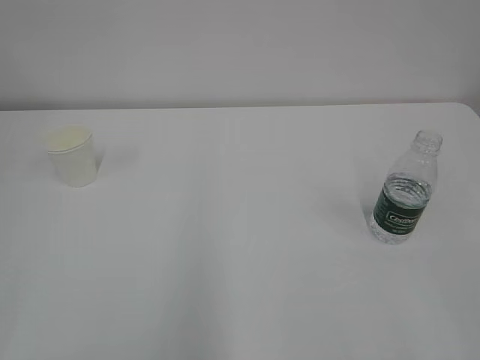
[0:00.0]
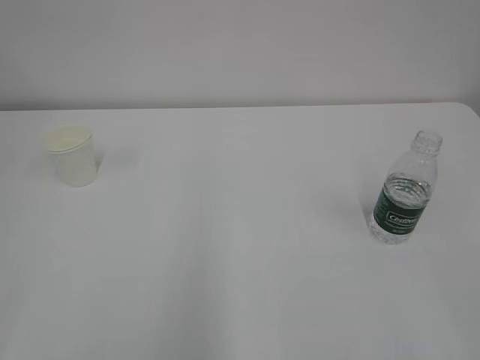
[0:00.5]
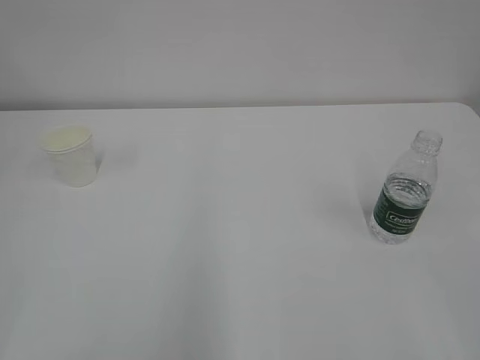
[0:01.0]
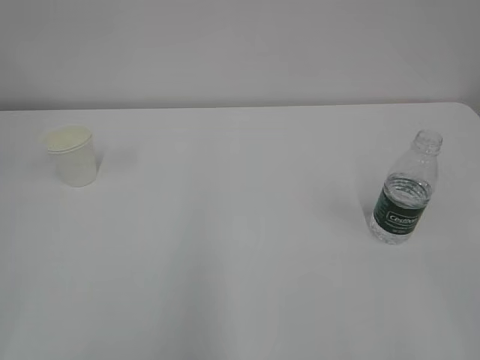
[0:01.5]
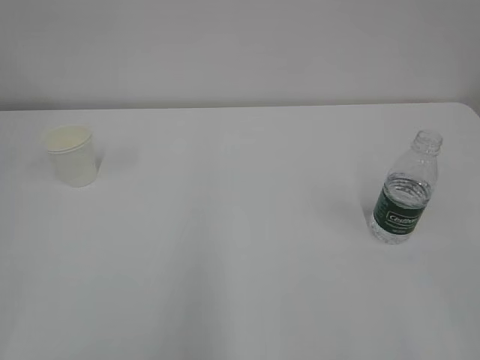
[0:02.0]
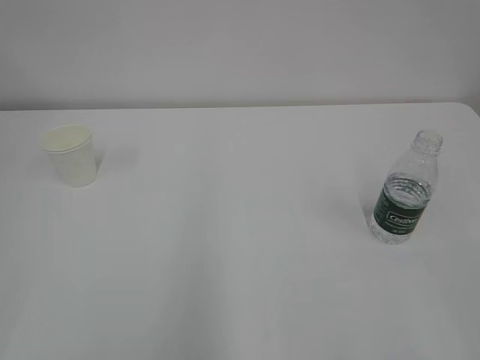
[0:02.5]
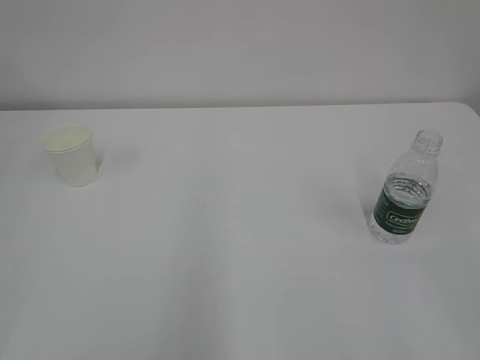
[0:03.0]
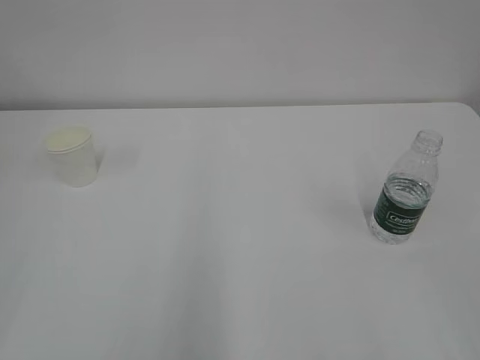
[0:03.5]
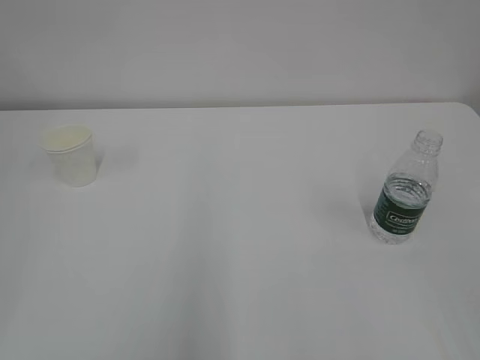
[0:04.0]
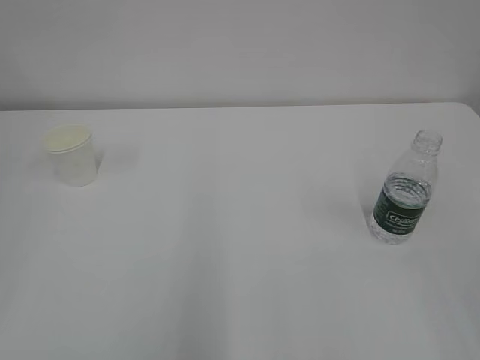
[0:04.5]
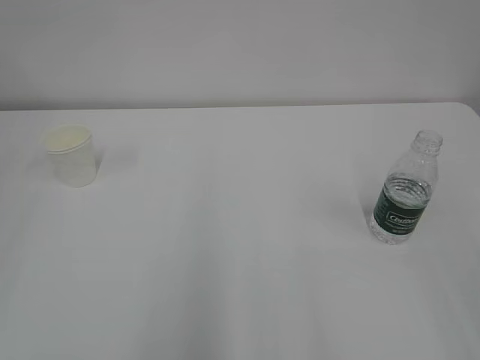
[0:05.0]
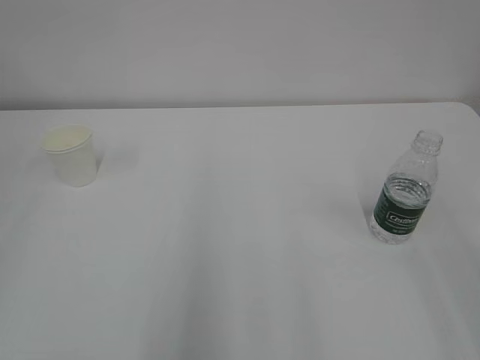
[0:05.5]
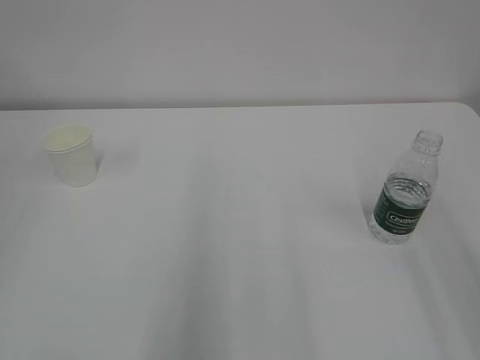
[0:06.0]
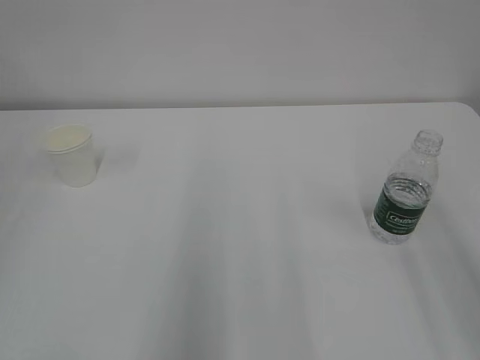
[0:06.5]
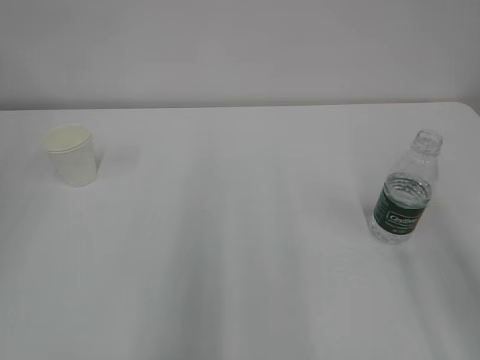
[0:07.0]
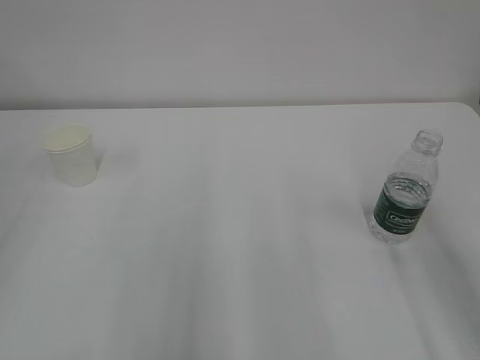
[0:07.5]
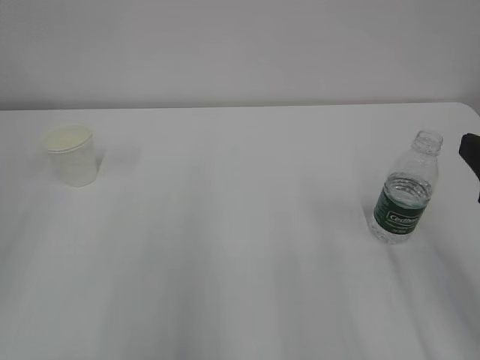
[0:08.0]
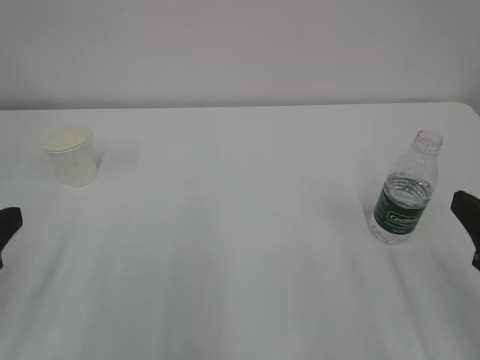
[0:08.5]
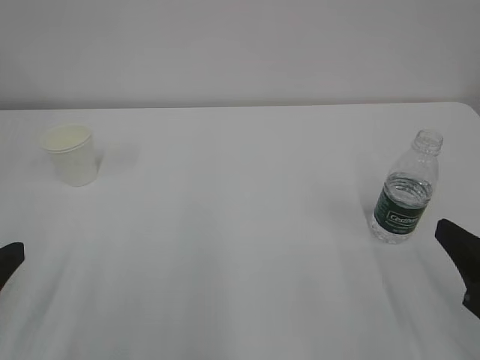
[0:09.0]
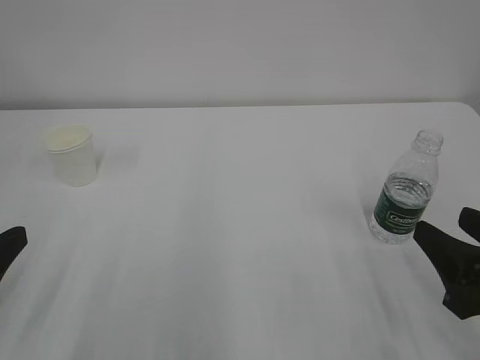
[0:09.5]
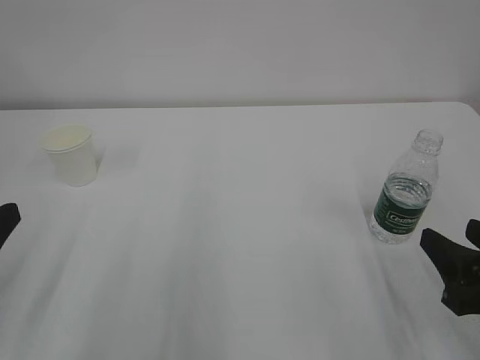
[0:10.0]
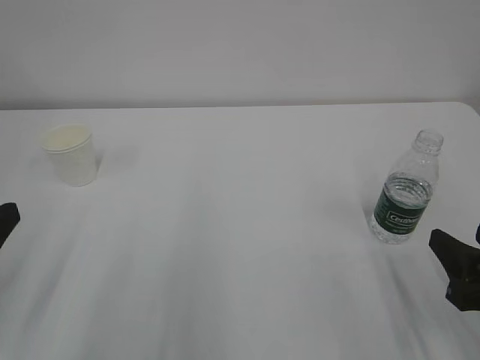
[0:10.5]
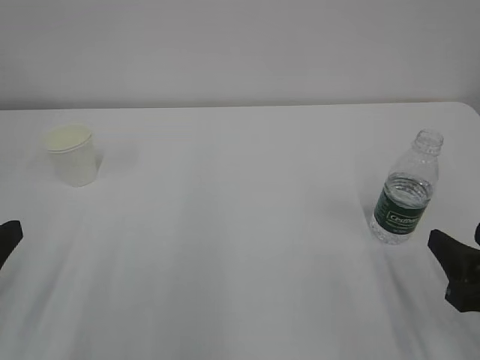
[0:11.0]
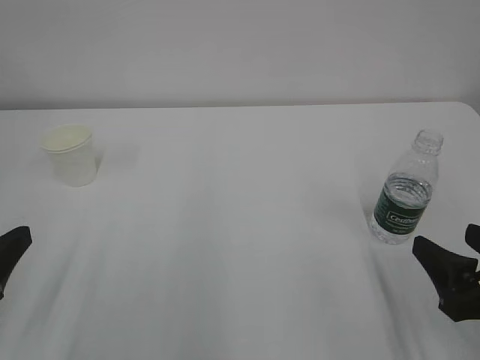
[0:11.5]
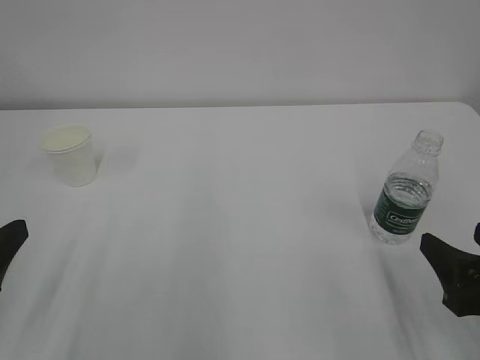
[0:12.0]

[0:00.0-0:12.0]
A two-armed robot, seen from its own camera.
0:08.0 to 0:10.0: The right gripper moves downward, some 10 cm.
0:10.0 to 0:12.0: The left gripper opens.

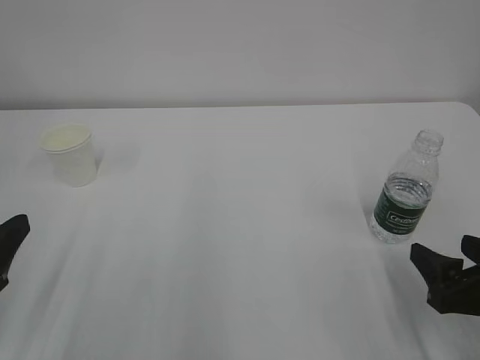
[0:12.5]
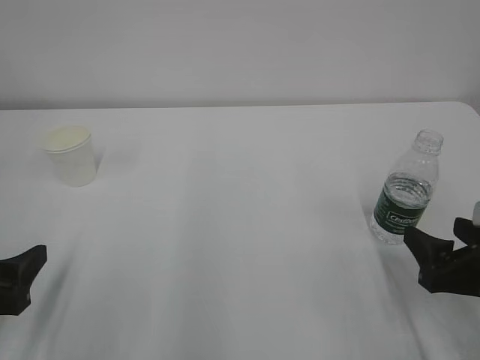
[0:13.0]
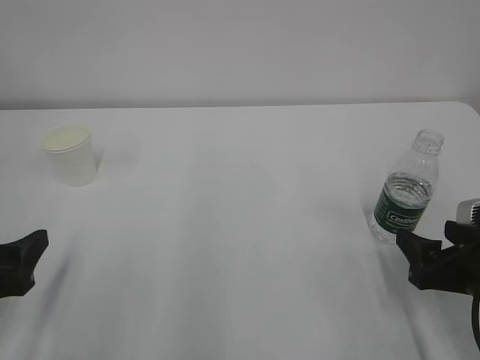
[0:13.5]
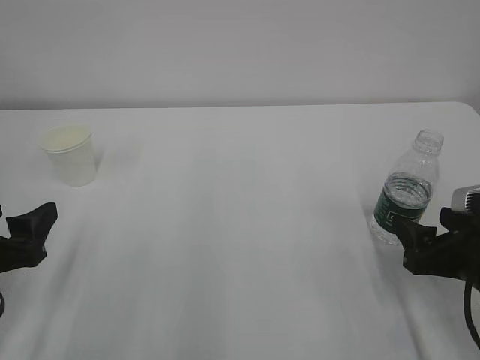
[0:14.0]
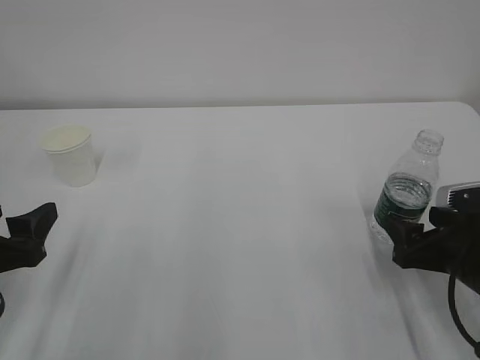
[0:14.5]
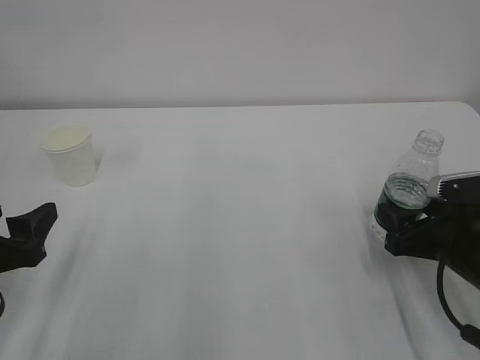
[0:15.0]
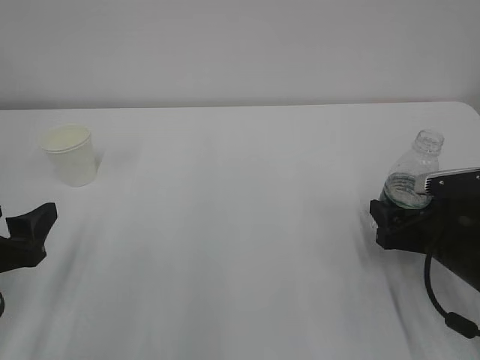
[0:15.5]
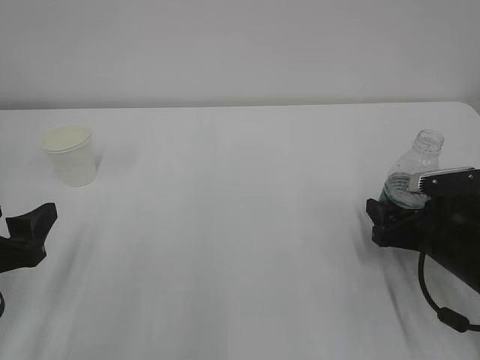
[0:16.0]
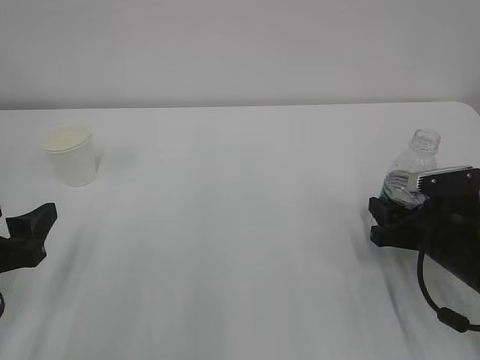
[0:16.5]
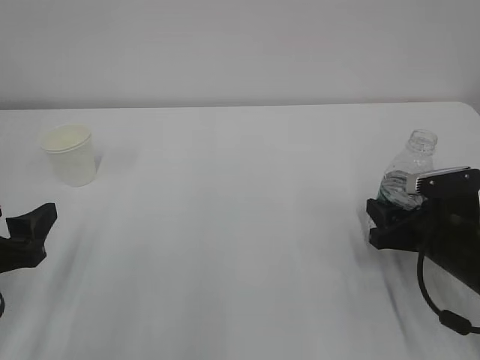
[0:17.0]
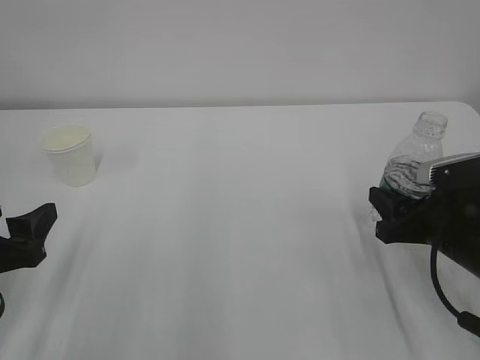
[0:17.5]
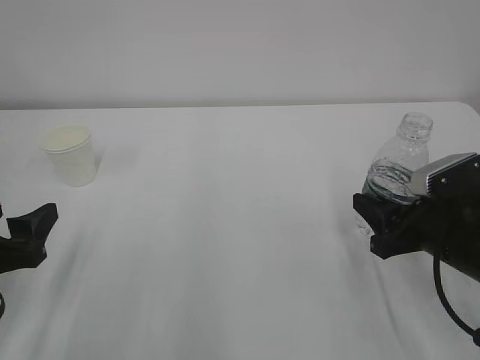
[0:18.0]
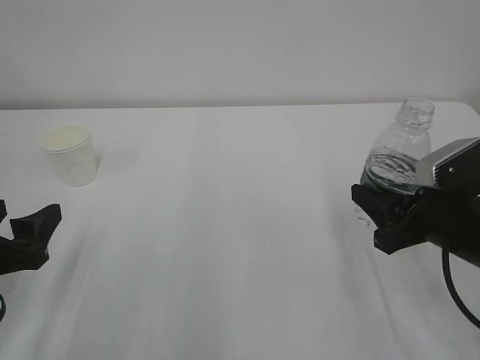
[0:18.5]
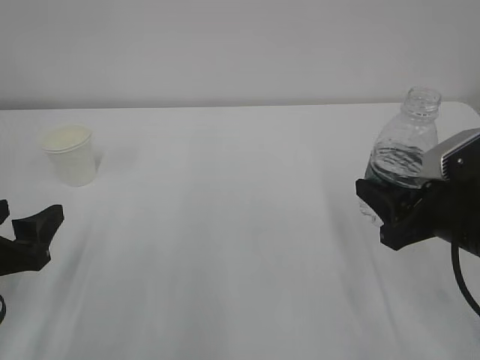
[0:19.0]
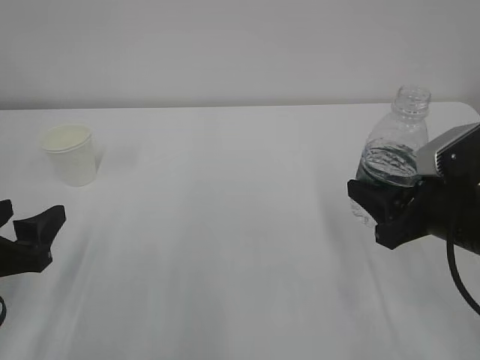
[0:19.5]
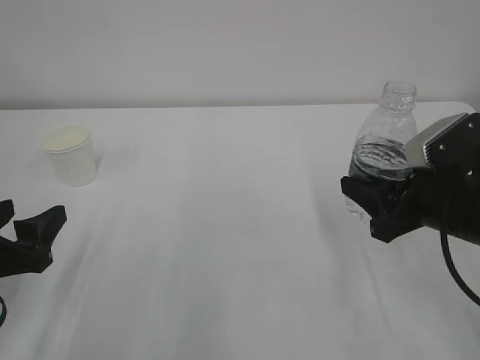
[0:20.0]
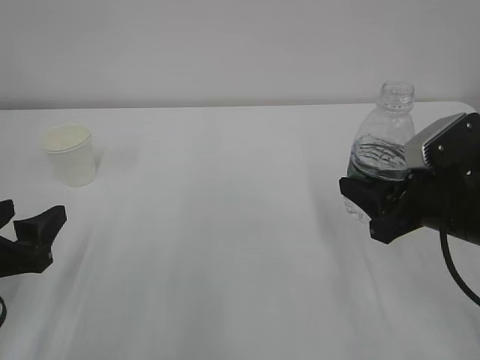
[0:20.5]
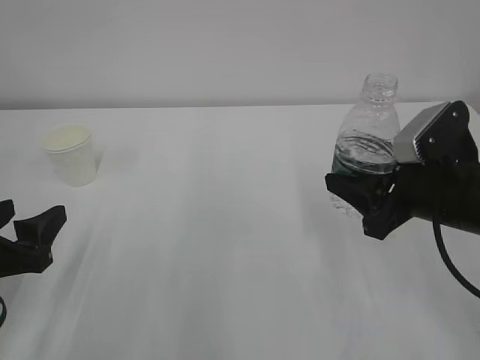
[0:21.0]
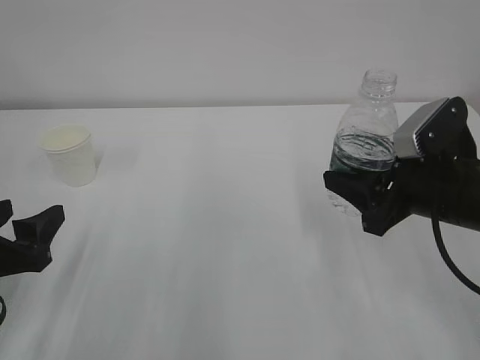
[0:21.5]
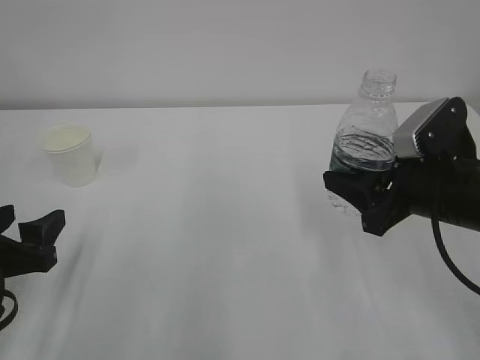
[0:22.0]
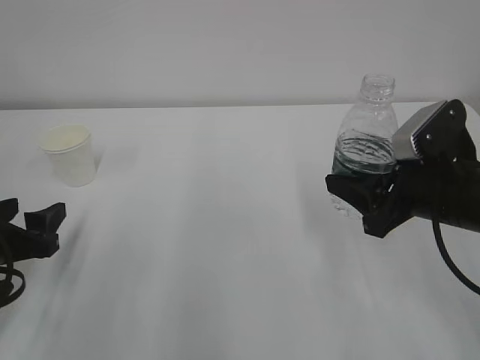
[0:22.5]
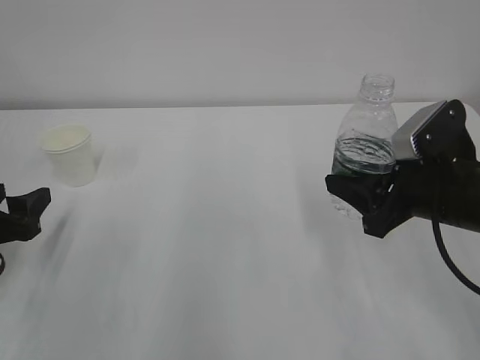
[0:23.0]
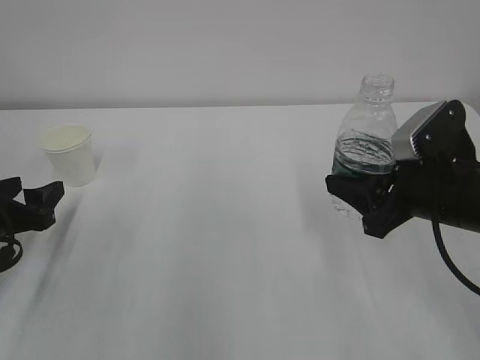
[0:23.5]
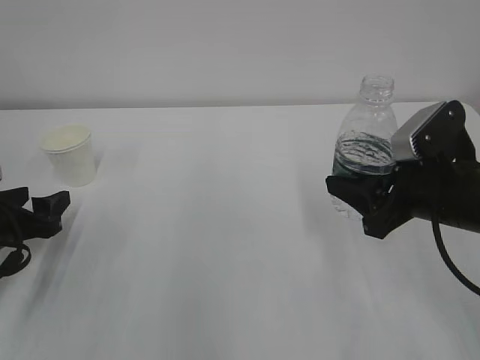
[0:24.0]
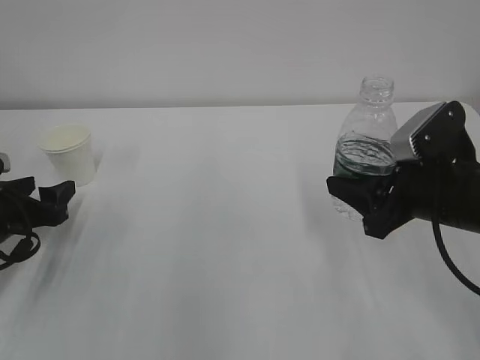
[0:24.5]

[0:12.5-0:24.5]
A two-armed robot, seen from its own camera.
0:12.5 to 0:14.5: The right gripper travels forward by roughly 5 cm.
0:14.5 to 0:16.5: The right gripper closes its fingers.
0:16.5 to 0:18.5: The right gripper is displaced upward by approximately 5 cm.
0:18.5 to 0:22.5: The grippers move only a little.
0:22.5 to 0:24.5: The left gripper heads forward, covering some 5 cm.

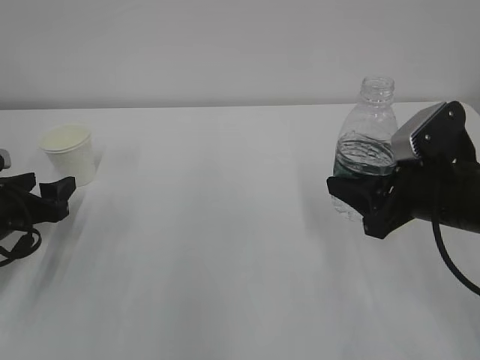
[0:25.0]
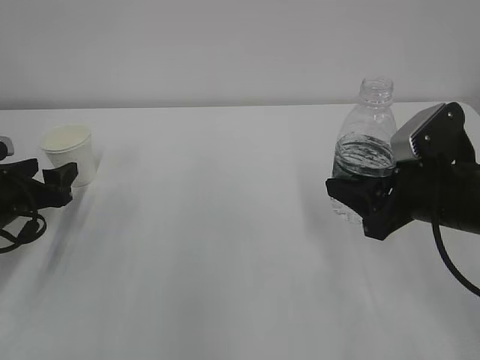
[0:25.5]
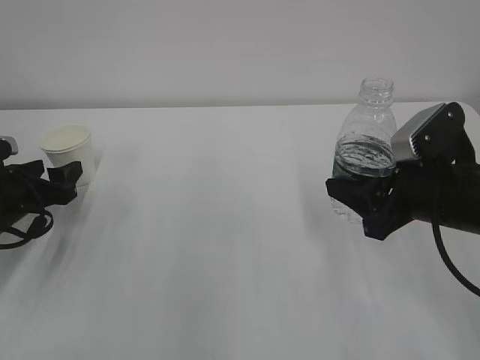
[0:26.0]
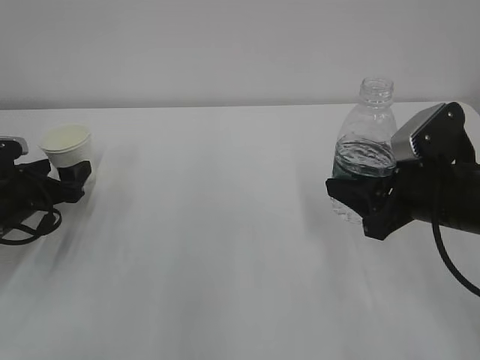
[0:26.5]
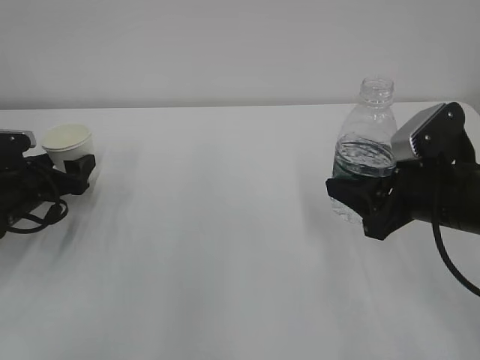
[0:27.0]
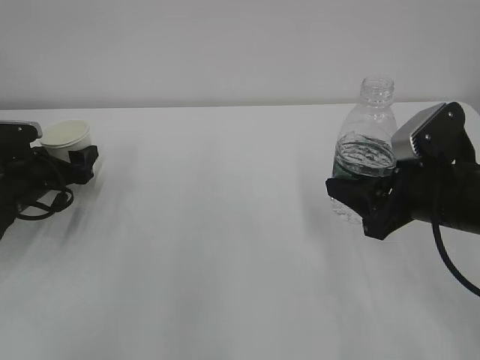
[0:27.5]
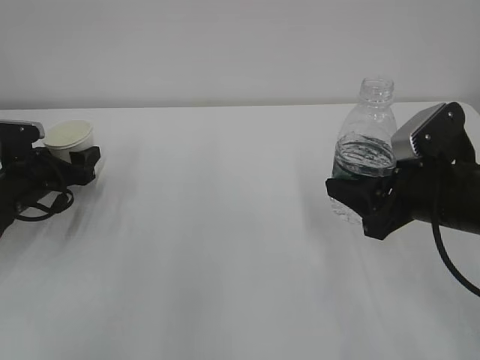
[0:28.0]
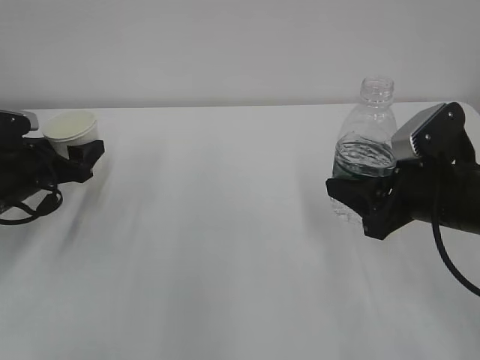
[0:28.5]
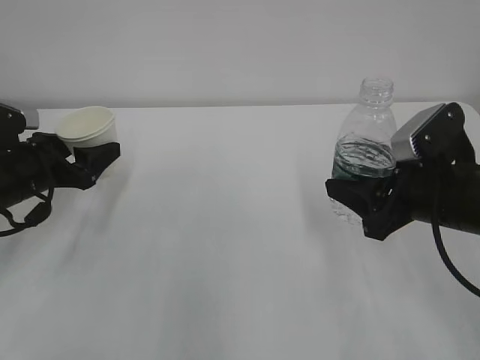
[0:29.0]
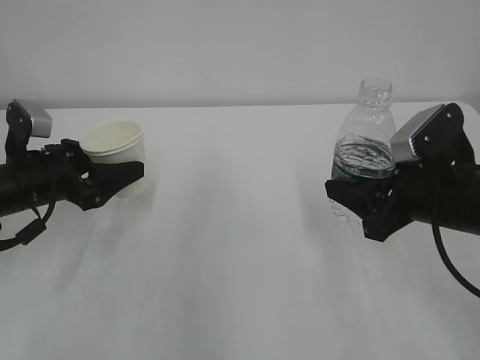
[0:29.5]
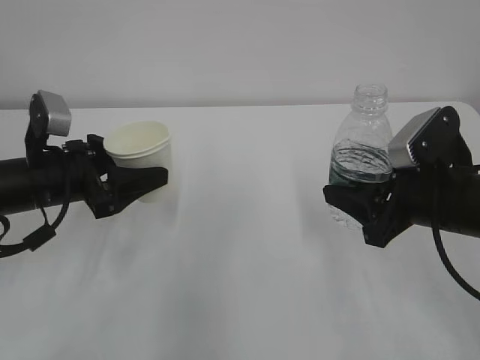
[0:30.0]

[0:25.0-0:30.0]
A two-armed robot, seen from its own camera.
0:25.0 to 0:27.5: The left gripper travels forward by approximately 10 cm, and opens.
0:27.5 to 0:30.0: The left gripper goes some 15 cm to the right, backward and upward, and closes up.
